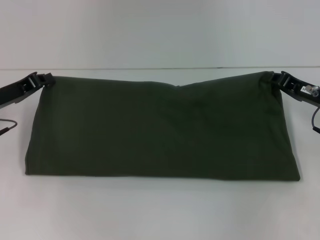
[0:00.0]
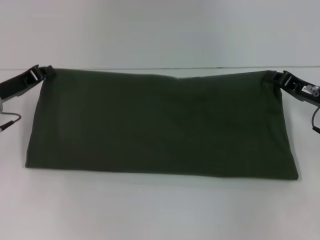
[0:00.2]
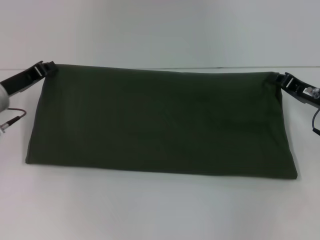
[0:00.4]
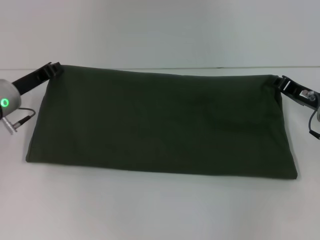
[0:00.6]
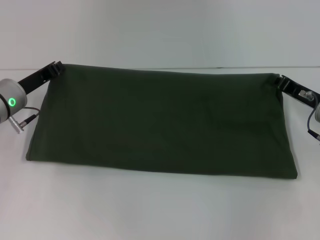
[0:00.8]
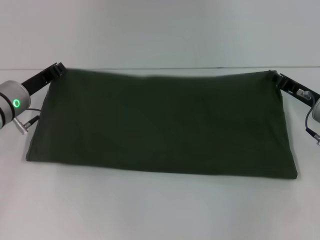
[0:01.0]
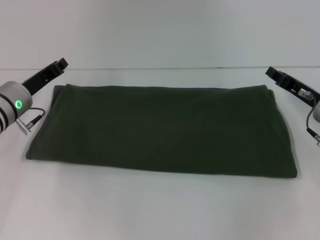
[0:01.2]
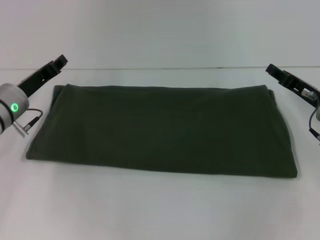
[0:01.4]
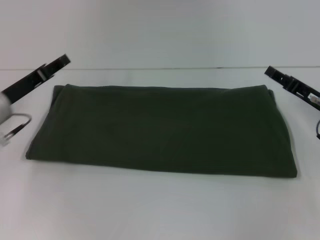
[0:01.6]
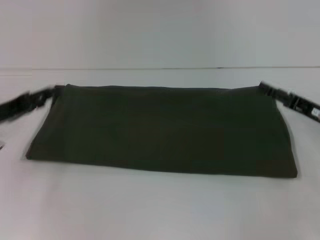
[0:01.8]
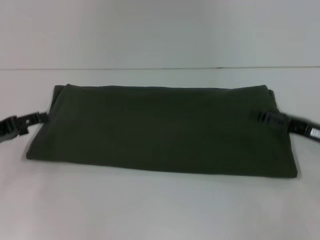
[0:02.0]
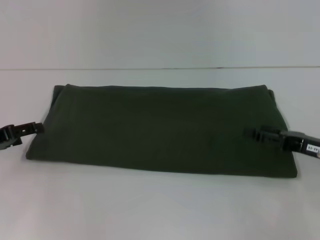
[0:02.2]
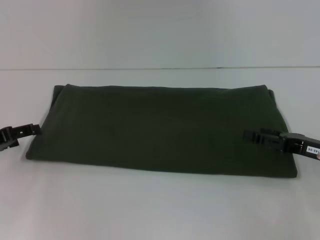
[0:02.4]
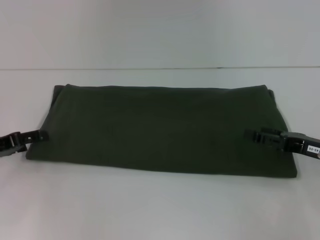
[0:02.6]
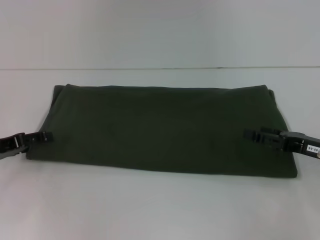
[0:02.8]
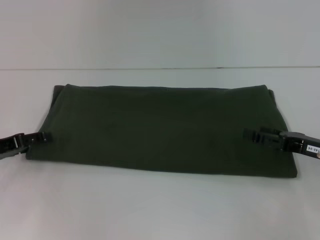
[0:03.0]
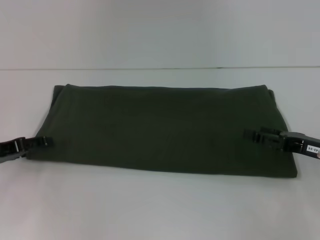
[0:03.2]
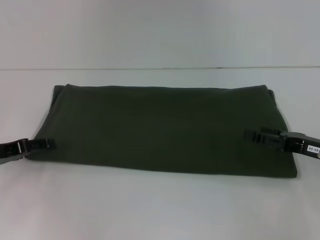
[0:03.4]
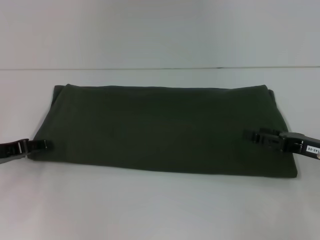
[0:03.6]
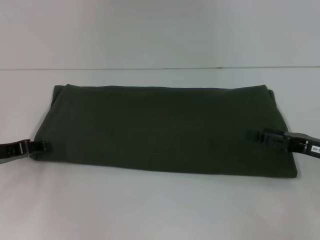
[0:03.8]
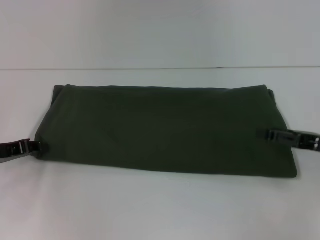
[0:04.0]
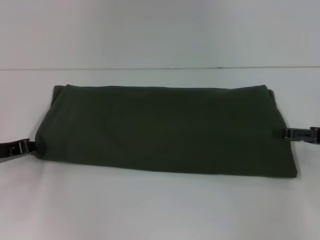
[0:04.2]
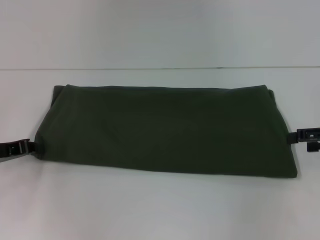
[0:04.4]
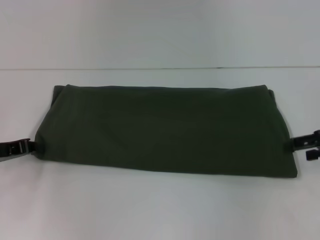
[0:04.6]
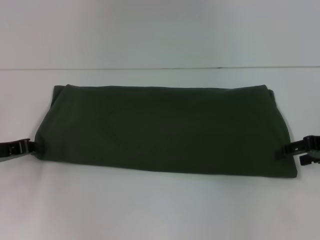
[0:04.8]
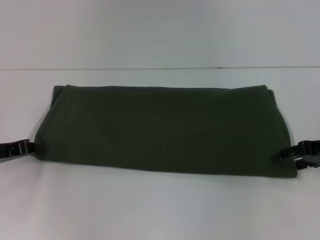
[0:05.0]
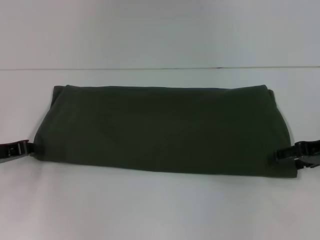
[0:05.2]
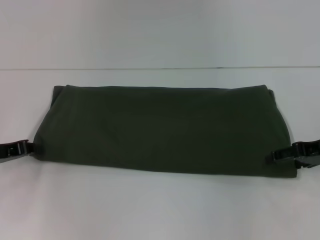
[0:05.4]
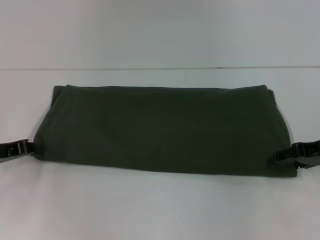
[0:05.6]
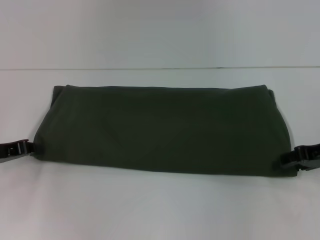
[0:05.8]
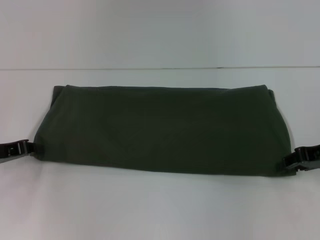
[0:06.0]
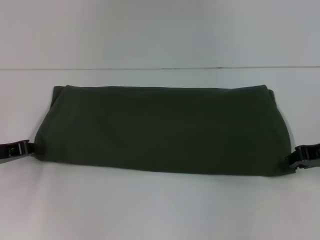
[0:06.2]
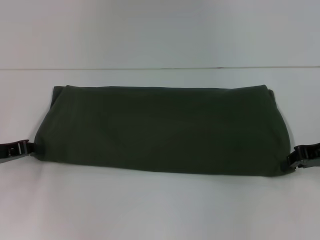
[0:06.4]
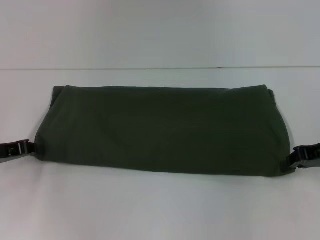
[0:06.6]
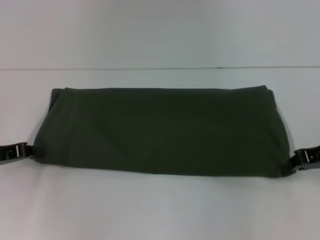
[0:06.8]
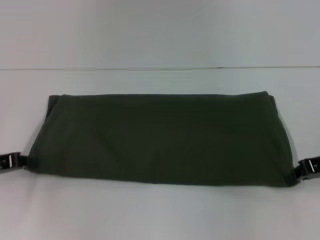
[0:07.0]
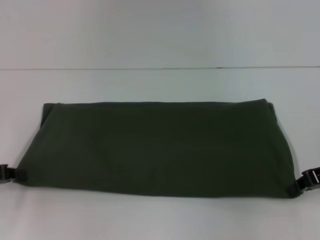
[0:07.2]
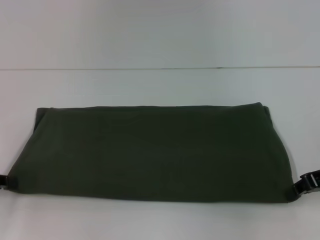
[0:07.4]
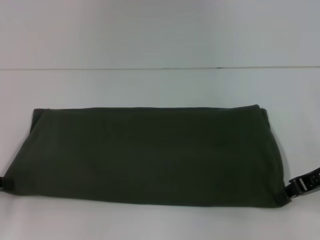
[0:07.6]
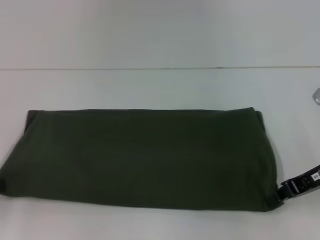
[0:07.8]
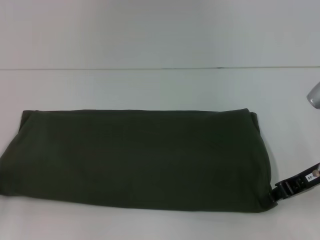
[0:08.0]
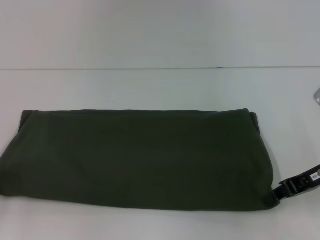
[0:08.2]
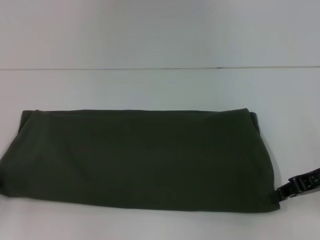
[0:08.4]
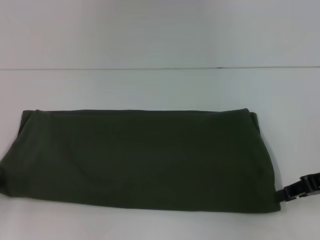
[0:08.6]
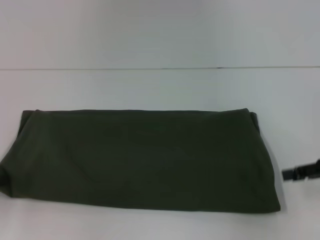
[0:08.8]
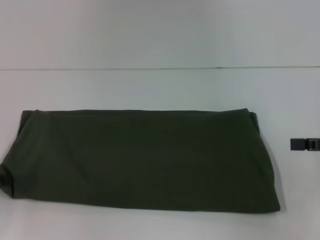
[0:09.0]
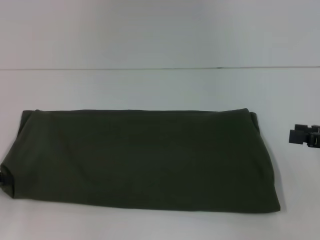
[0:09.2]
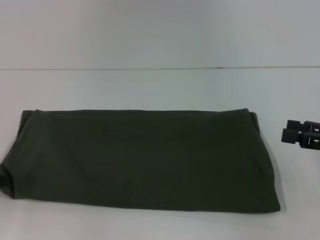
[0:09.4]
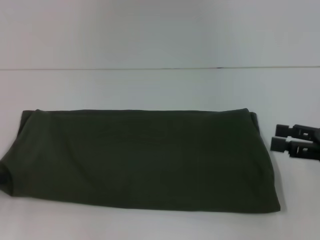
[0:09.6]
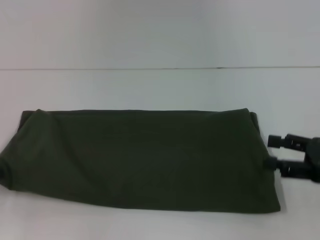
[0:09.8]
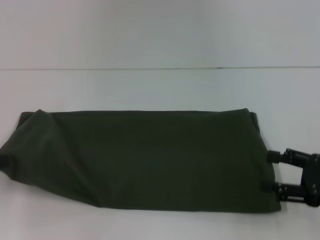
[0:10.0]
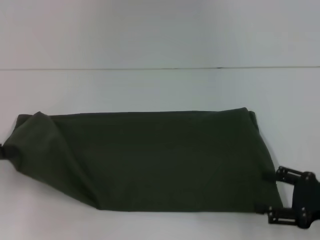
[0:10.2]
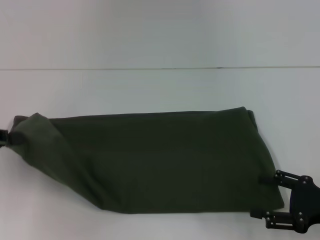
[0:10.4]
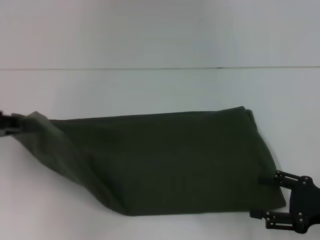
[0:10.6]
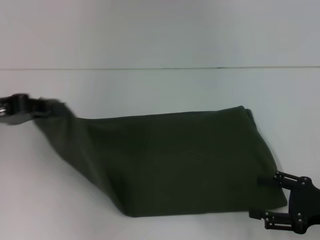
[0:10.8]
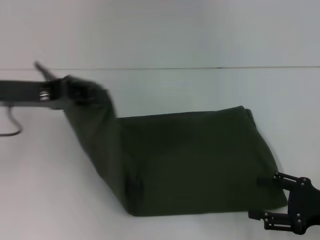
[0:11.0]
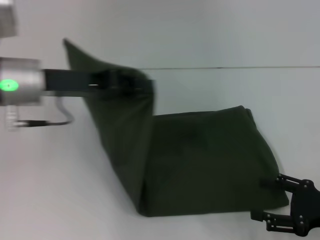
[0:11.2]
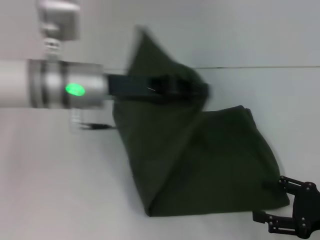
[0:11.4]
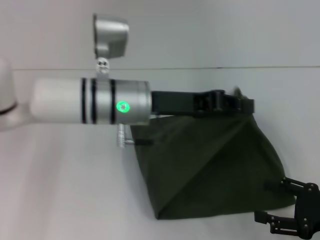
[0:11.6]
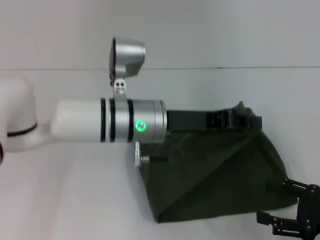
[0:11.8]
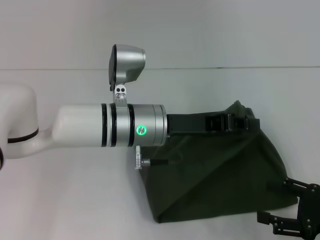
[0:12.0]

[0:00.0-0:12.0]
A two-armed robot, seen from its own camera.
Step, 0:01.2 to 0:08.6: Pull the clothes with your left hand.
Step, 0:01.2 to 0:08.6: Pull the clothes with your right hand.
0:00.0 to 0:01.6: The right gripper opens its fingers.
0:01.6 to 0:03.0: The right gripper moves backward, approximately 5 cm, and opens its fingers. Meanwhile the left gripper goes approximately 10 cm to the left and backward, and opens up.
0:03.0 to 0:04.4: The right gripper moves upward, approximately 10 cm. The left gripper closes up.
0:04.4 to 0:06.0: The right gripper closes its fingers.
0:06.0 to 0:07.6: The left gripper is displaced backward by approximately 5 cm, while the right gripper closes up.
0:07.6 to 0:09.0: The right gripper heads to the right, covering about 5 cm, and opens its fingers.
0:09.0 to 0:10.4: The left gripper shifts about 5 cm upward; the right gripper is displaced downward and backward by about 10 cm, and opens.
0:10.4 to 0:12.0: The left gripper heads to the right, covering about 30 cm.

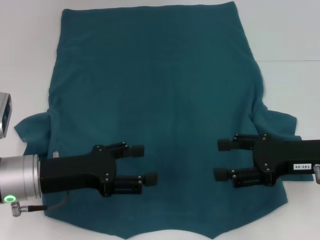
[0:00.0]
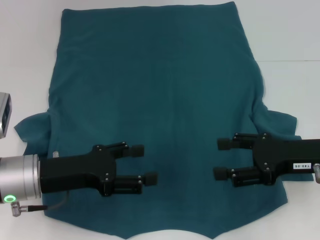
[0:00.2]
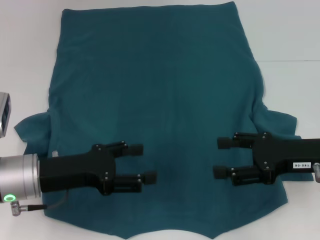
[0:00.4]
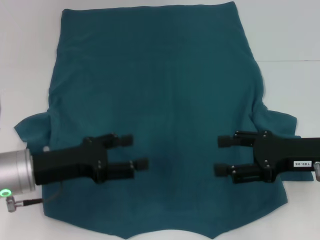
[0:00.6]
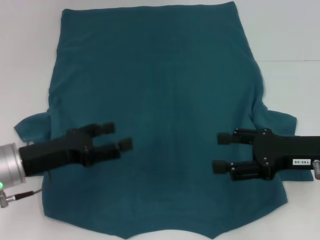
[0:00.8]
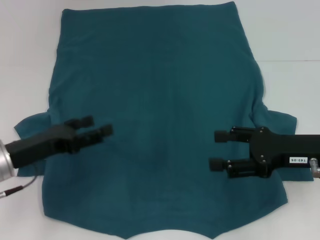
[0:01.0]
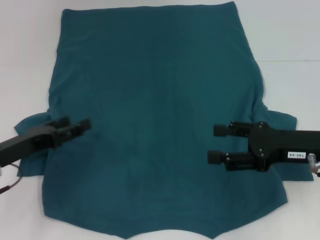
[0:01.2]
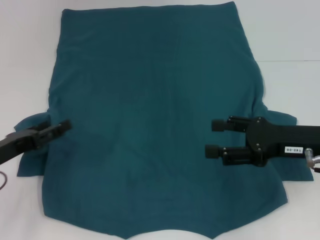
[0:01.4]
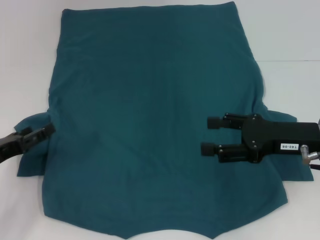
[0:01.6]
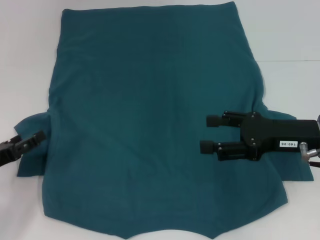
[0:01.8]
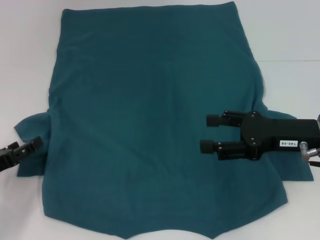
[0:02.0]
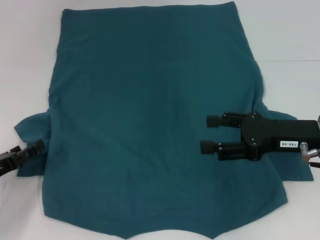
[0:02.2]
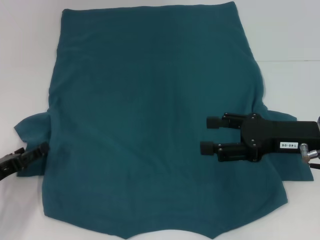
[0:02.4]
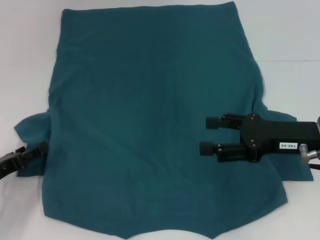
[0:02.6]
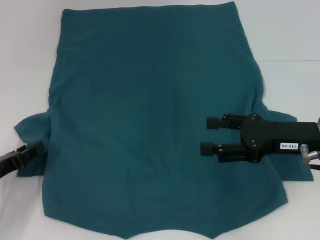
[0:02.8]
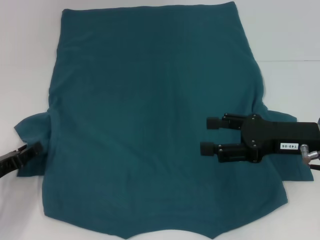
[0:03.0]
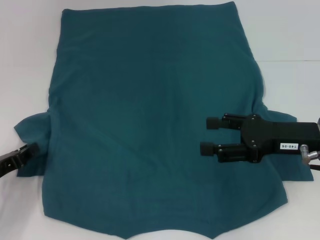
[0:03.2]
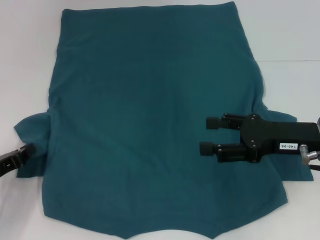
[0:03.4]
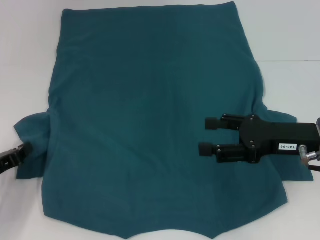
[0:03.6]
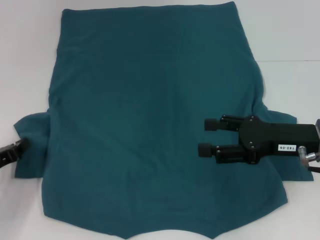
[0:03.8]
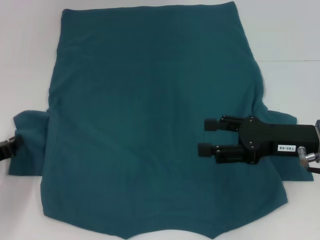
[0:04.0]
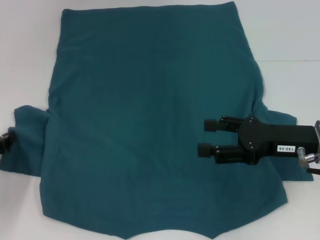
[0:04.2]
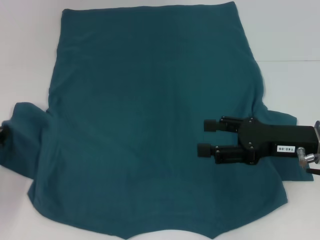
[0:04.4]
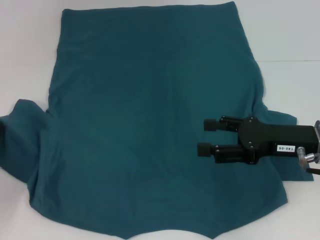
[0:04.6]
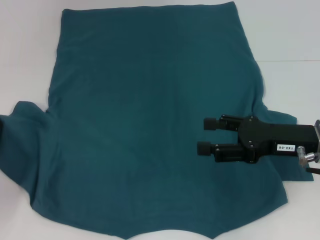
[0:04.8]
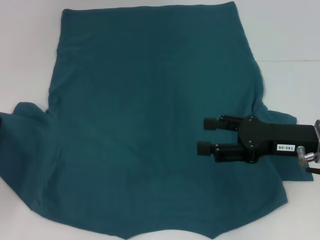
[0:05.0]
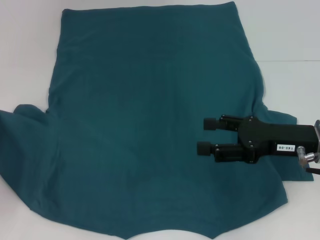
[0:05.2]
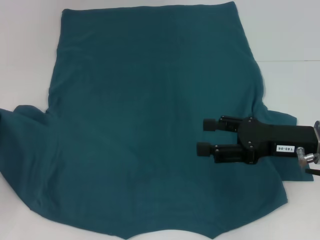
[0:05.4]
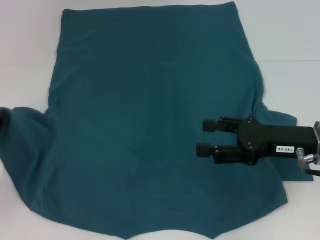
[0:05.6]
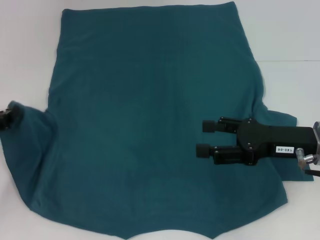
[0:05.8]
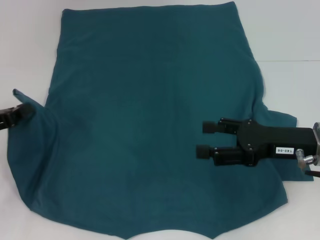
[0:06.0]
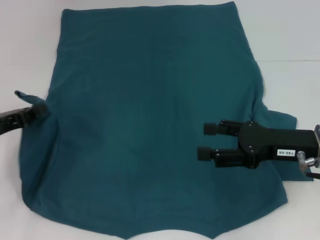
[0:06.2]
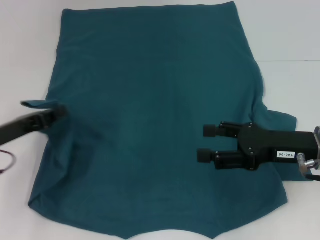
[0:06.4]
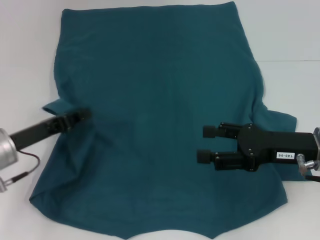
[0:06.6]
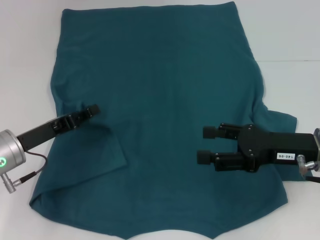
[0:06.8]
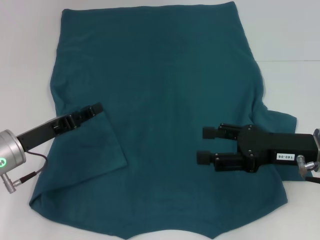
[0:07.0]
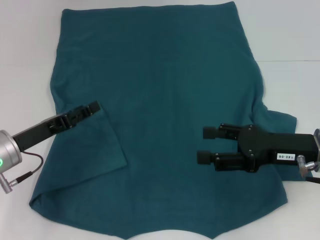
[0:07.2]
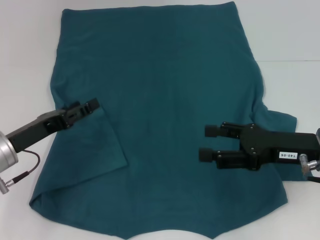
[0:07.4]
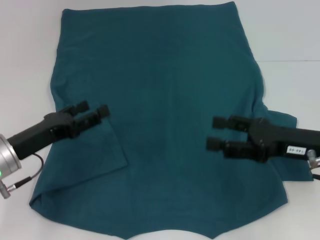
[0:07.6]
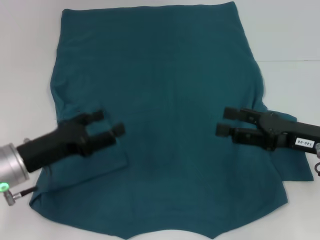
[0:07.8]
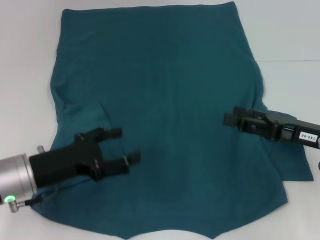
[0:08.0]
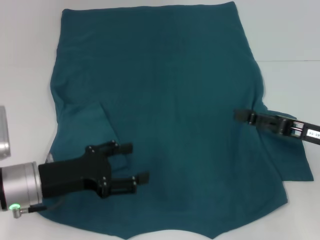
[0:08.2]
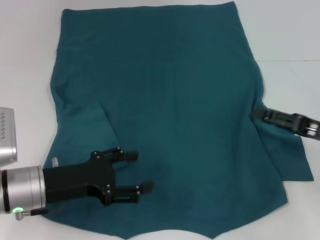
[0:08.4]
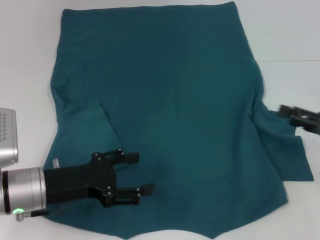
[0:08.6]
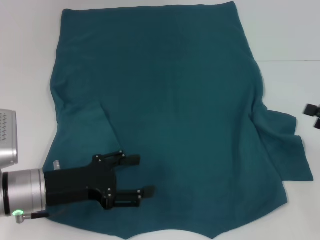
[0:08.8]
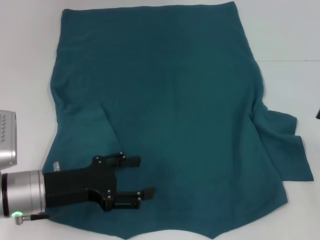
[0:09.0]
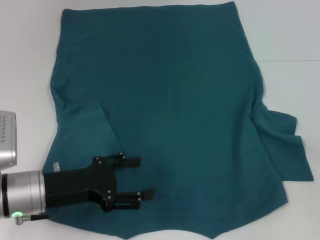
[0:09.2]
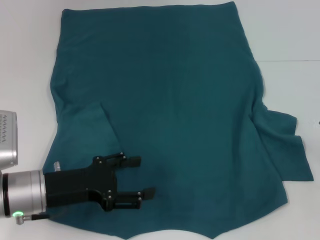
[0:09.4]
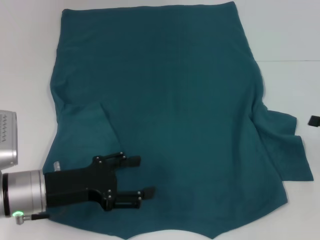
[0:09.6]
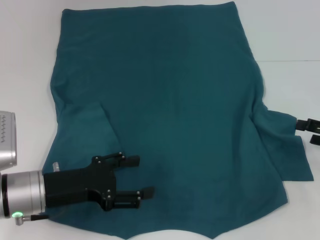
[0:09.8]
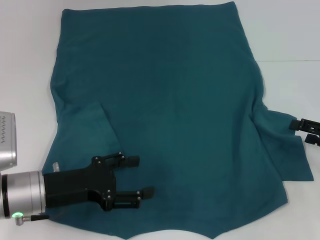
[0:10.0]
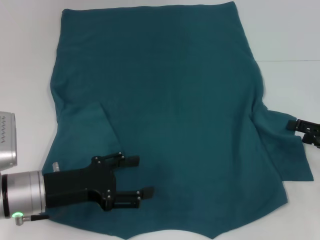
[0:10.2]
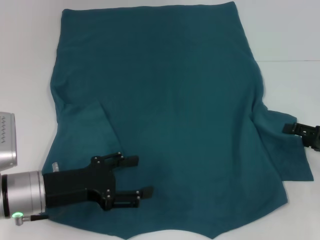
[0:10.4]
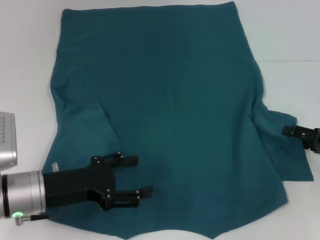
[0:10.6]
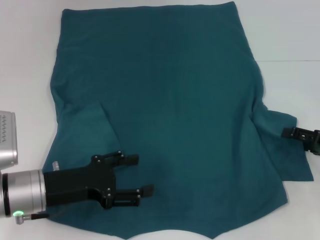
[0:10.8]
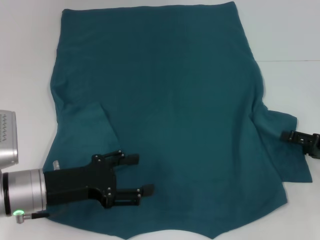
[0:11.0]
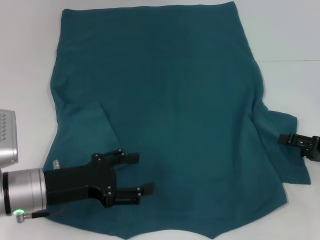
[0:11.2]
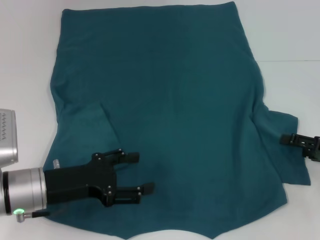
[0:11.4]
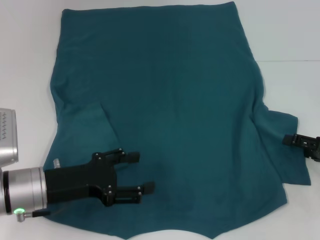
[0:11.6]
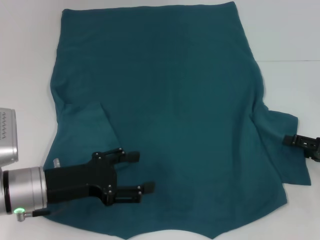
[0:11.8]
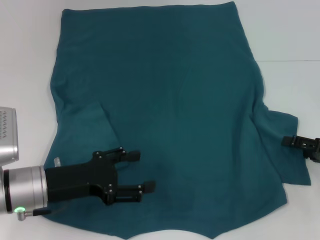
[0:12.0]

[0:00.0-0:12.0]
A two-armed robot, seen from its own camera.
Step, 0:00.0 to 0:07.6: Fold the bottom left sleeve with your left hand.
0:00.0 to 0:01.6: The left gripper travels to the left by roughly 10 cm.
0:01.6 to 0:03.0: The left gripper closes up.
0:03.0 to 0:04.4: The left gripper closes up.
0:04.4 to 0:06.0: The grippers stay close to where they were, moving slightly.
0:06.0 to 0:07.6: The left gripper moves to the right, some 10 cm, and opens its fingers.
0:07.6 to 0:09.0: The right gripper heads to the right, covering about 15 cm.
0:09.0 to 0:10.4: The right gripper shifts by approximately 5 cm.
0:10.4 to 0:12.0: Both grippers stay put.
